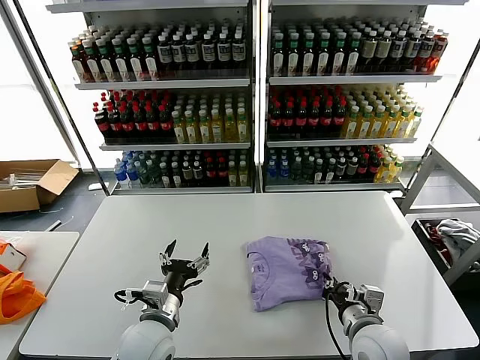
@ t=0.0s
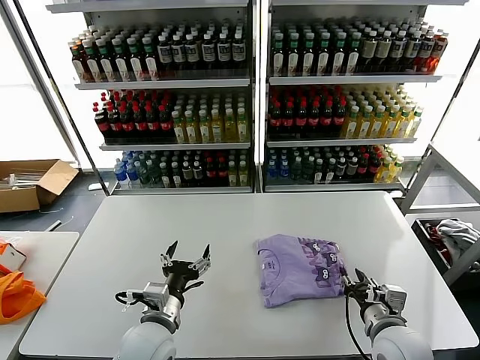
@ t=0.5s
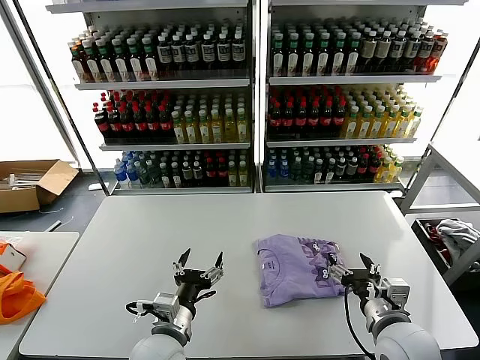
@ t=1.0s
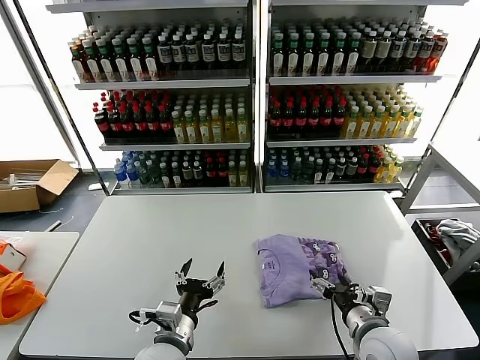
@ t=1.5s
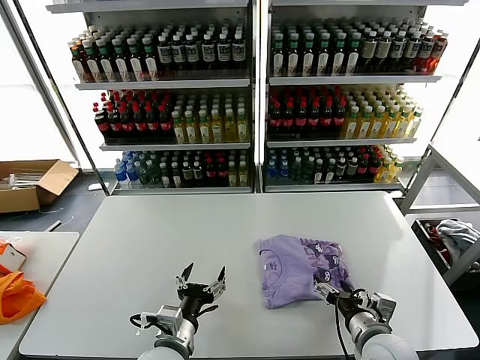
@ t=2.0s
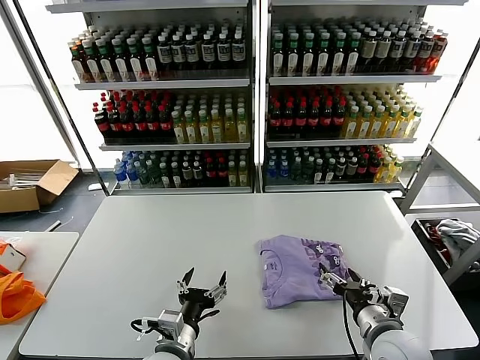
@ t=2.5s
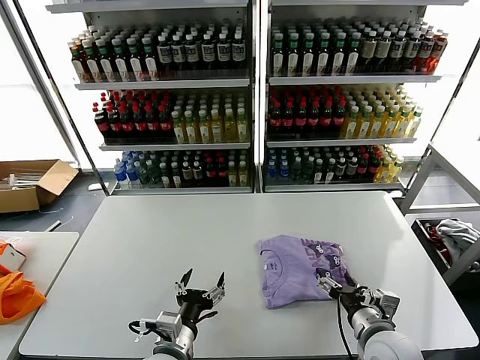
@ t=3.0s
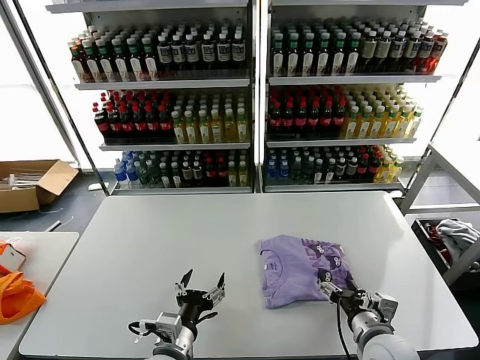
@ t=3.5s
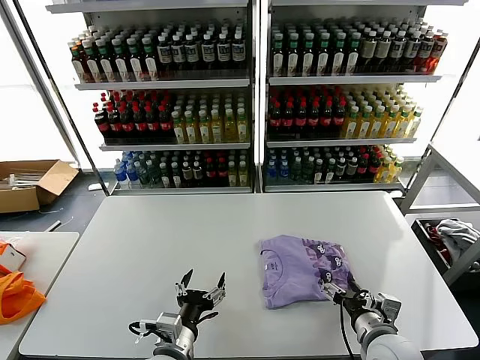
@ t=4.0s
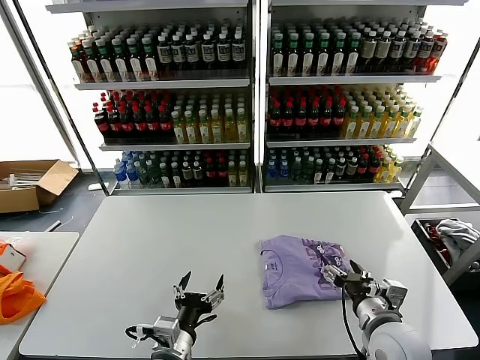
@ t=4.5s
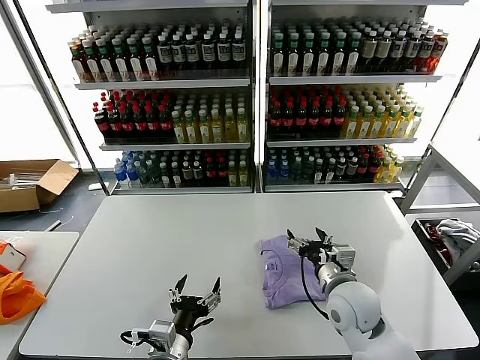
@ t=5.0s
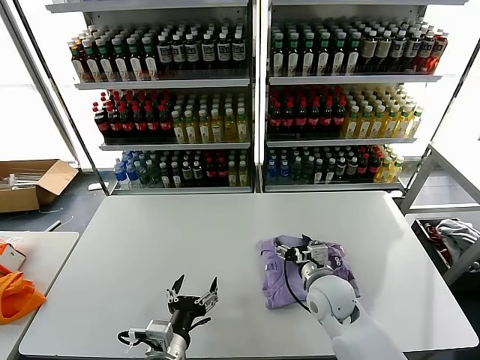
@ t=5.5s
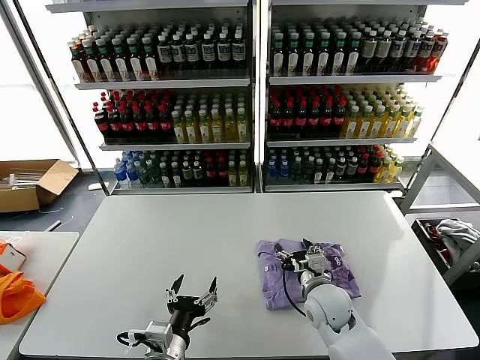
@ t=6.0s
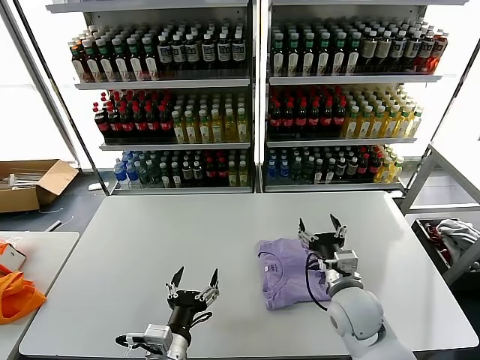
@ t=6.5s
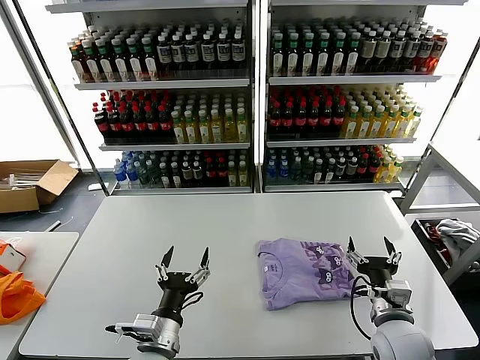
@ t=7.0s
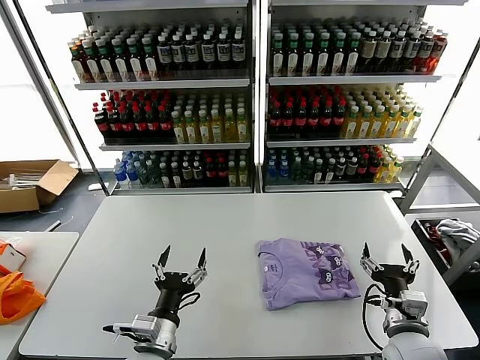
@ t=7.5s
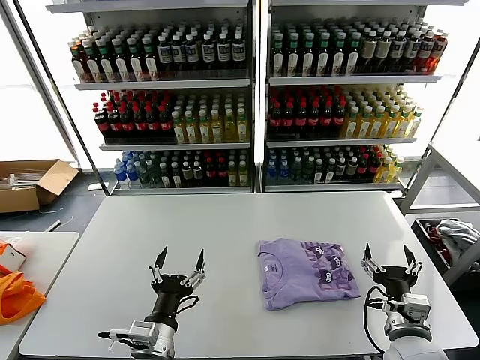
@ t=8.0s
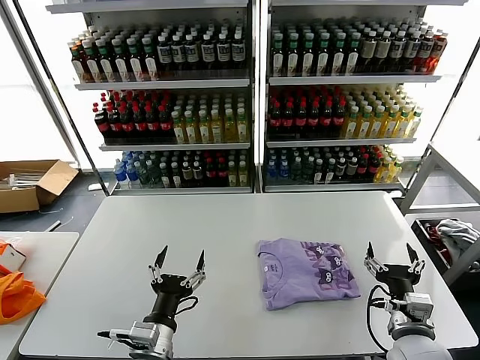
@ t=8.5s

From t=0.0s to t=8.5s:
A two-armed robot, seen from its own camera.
Task of the whole recording: fold and organize the clothes.
Step, from t=0.0s to t=6.0s: Drag the clothes to the center of the table.
From t=0.0s to t=2.0s: The left gripper ends up some 5 cm from where it was. Meanwhile the right gripper opens.
From t=2.0s to t=4.0s: The grippers stay close to where they were, moving slightly.
From t=4.0s to t=6.5s: The right gripper travels forward and to the left by roughly 10 cm.
From t=6.5s to t=8.5s: The right gripper moves backward and to the right, some 15 cm.

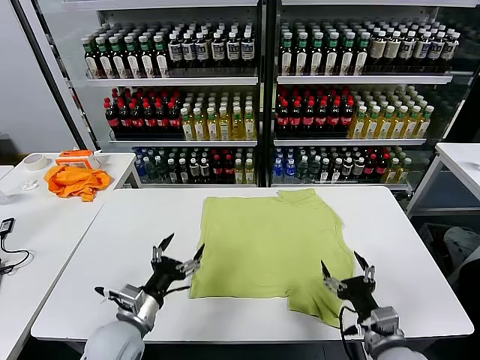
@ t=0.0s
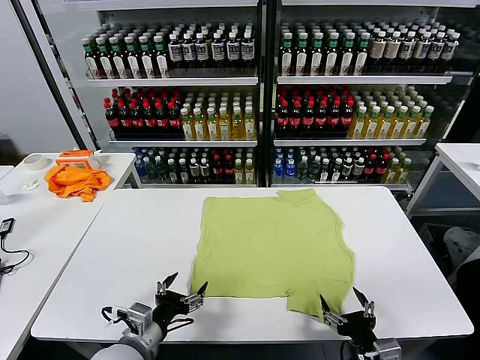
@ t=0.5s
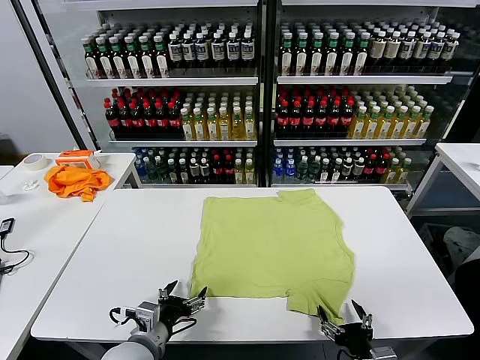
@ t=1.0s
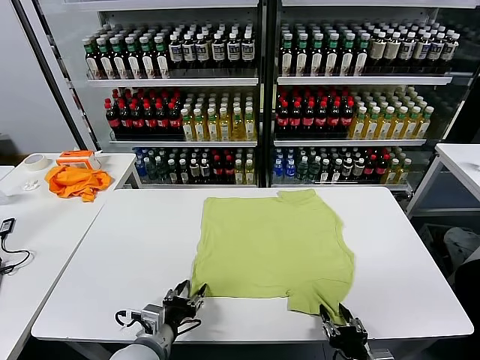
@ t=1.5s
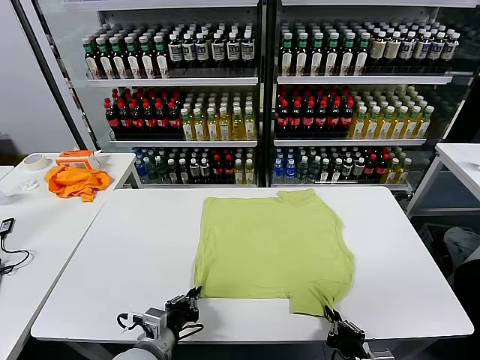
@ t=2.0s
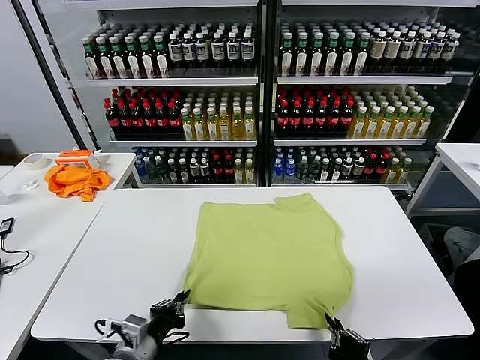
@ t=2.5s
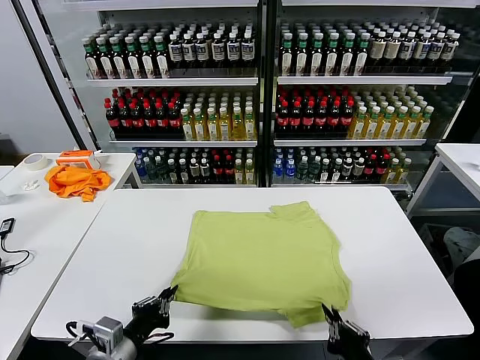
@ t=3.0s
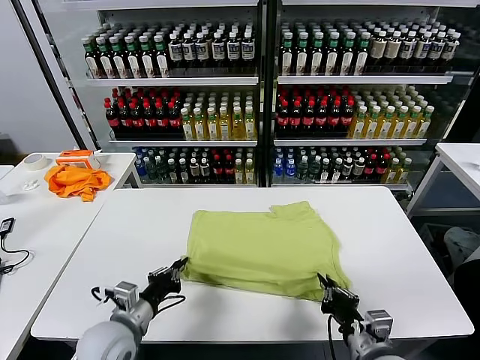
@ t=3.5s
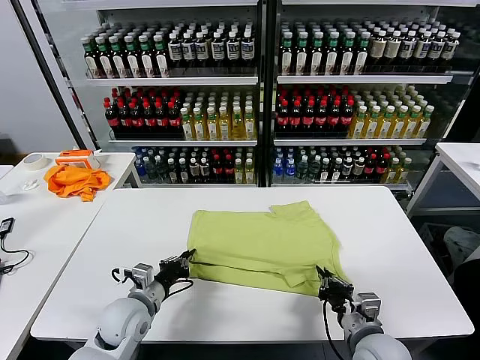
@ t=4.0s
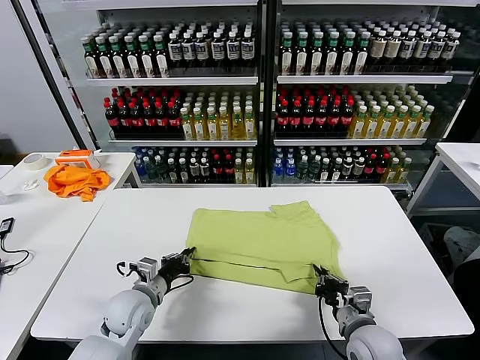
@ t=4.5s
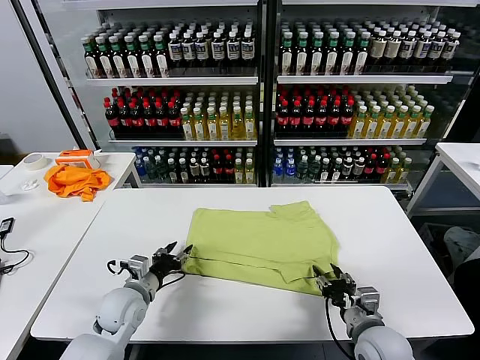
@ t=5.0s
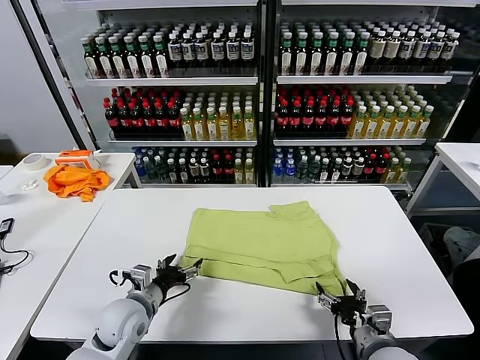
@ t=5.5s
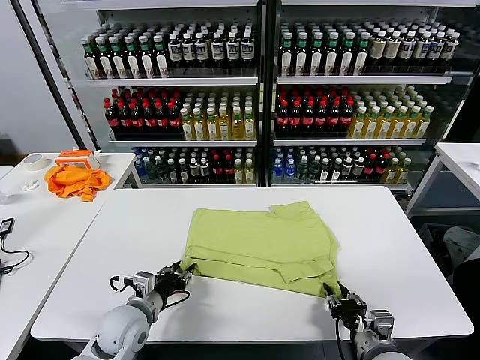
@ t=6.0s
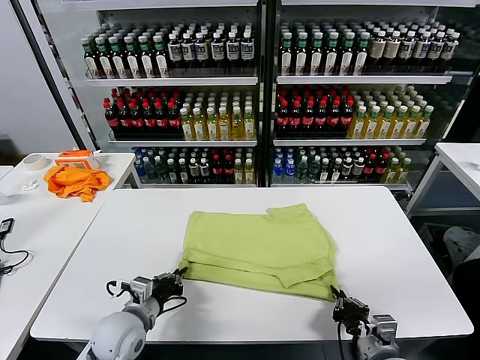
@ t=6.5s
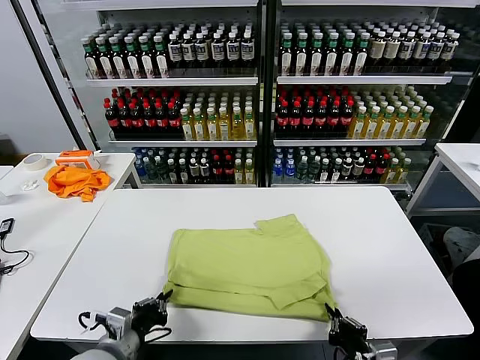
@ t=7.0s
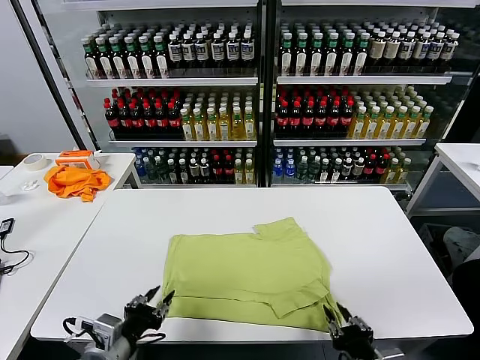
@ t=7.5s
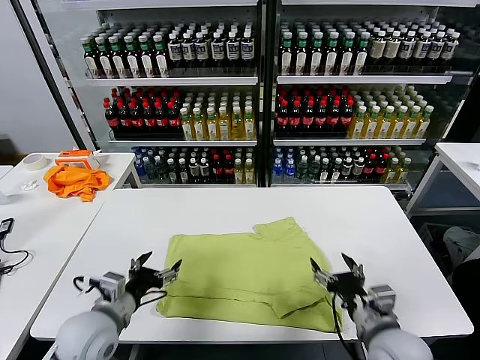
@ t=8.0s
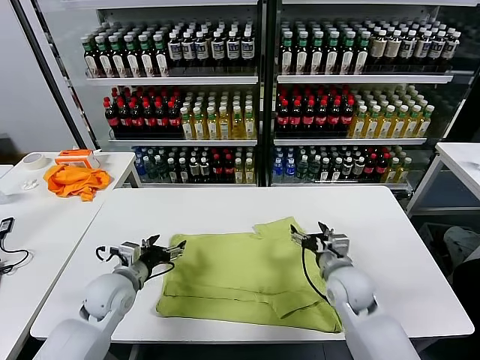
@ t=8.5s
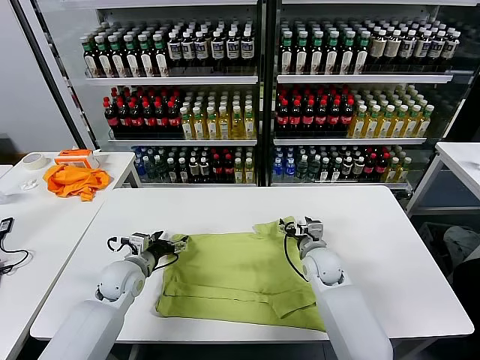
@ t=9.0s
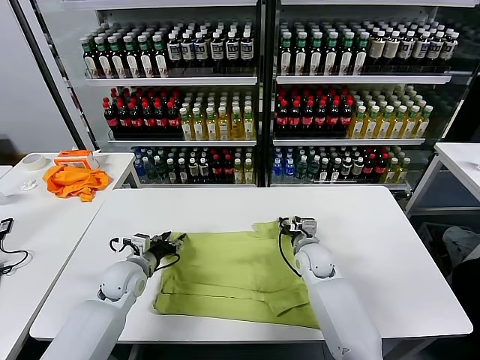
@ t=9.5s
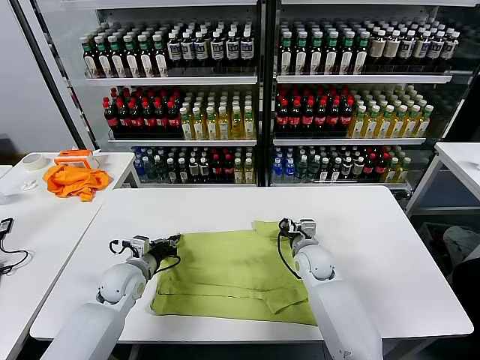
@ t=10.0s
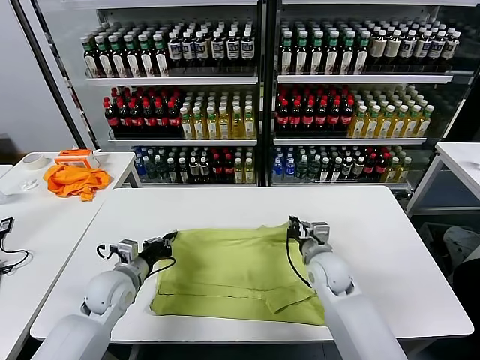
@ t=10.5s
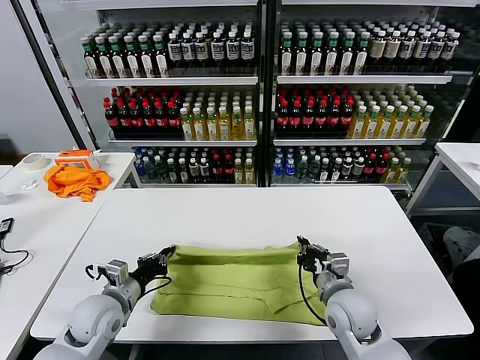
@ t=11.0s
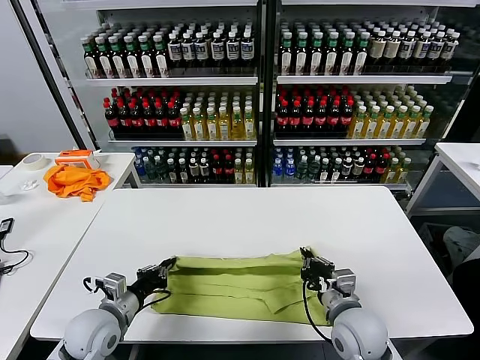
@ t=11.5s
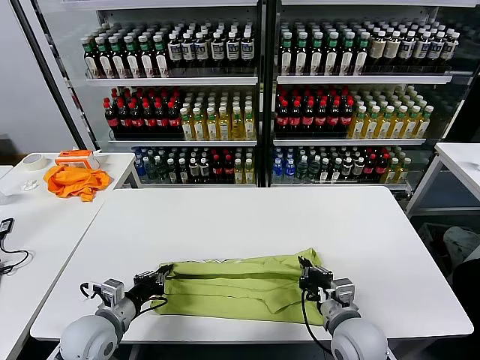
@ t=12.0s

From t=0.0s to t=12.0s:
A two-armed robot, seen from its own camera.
Task of the whole recording: fold and organize the clothes.
Step, from t=0.0s to t=2.0s: use both grippers simultaneously to clamp the lower edge of the clothing fabric.
Step, from t=2.5s to t=4.5s: use both grippers to drag the lower edge of the fabric forward and fold it over the upper edge.
Step, from t=5.0s to t=7.0s: Drag the clothes downward with both gripper.
Step, from t=7.5s to t=9.5s: use both grippers simultaneously to clamp the upper edge of the clothing fabric.
From t=2.0s to t=4.0s: The two grippers go some 10 cm forward.
From t=4.0s to t=6.0s: The right gripper opens and closes again. Meanwhile the left gripper opens up.
From t=6.0s to t=8.0s: The left gripper moves upward, approximately 5 cm, goes backward and returns, roughly 10 cm each way, and opens. The right gripper goes about 10 cm upward and forward, and opens up.
From t=8.0s to t=10.0s: The left gripper moves forward and downward, approximately 15 cm, and closes. Meanwhile the right gripper shifts some 20 cm forward, and closes up.
From t=10.0s to t=12.0s: The right gripper heads backward, covering roughly 20 cm, while the left gripper goes roughly 15 cm backward.

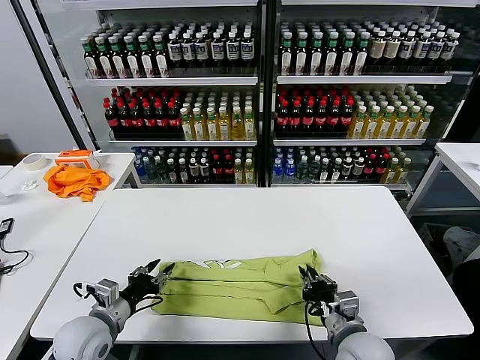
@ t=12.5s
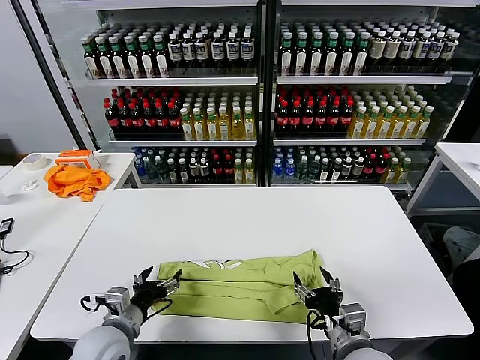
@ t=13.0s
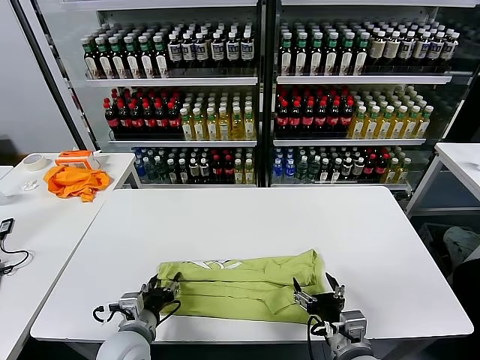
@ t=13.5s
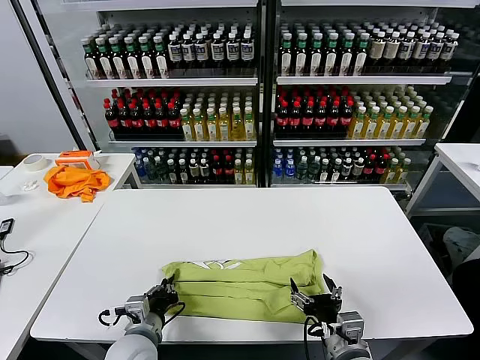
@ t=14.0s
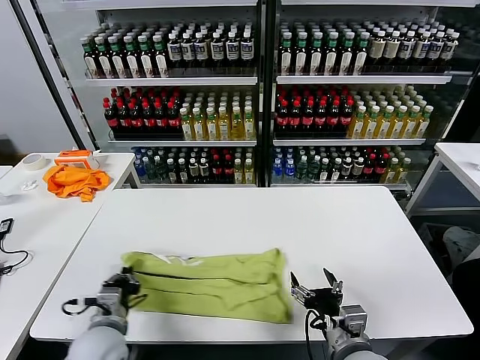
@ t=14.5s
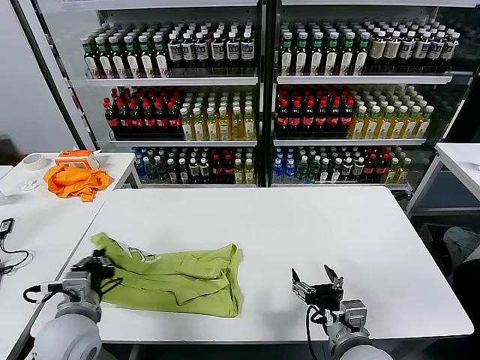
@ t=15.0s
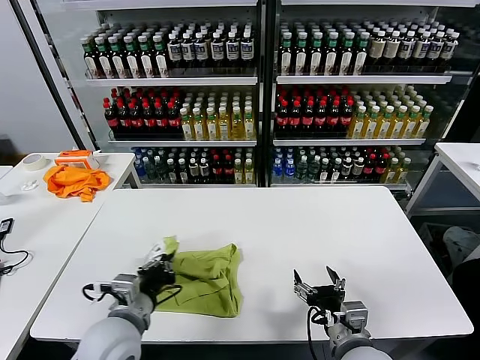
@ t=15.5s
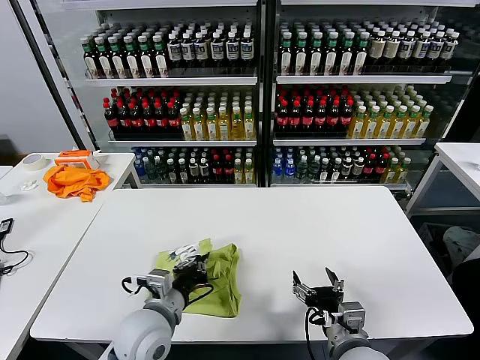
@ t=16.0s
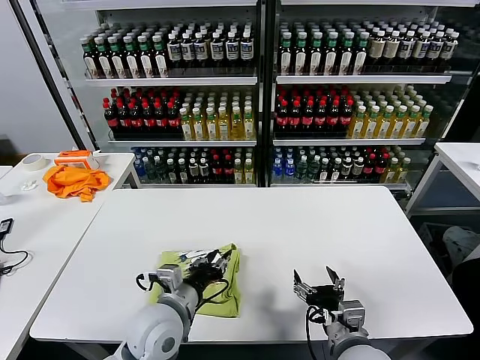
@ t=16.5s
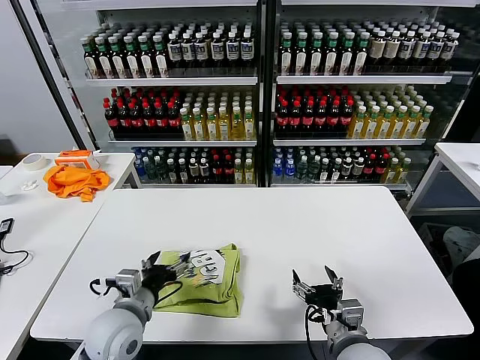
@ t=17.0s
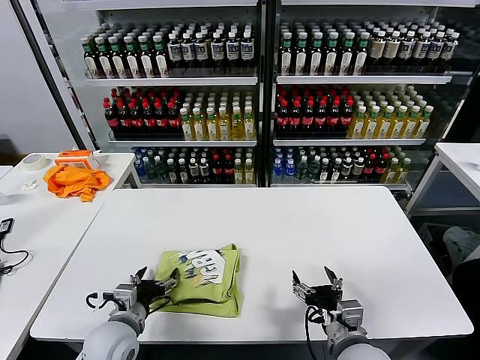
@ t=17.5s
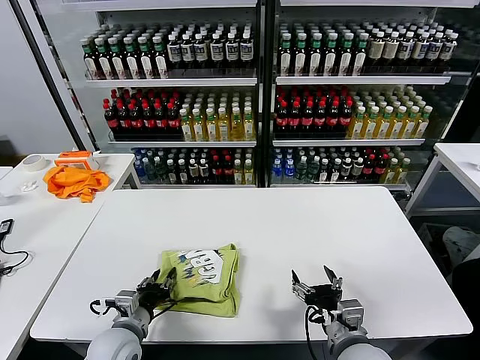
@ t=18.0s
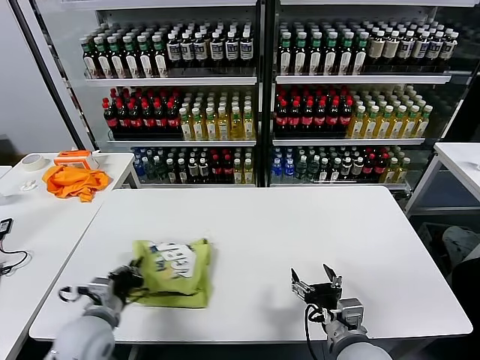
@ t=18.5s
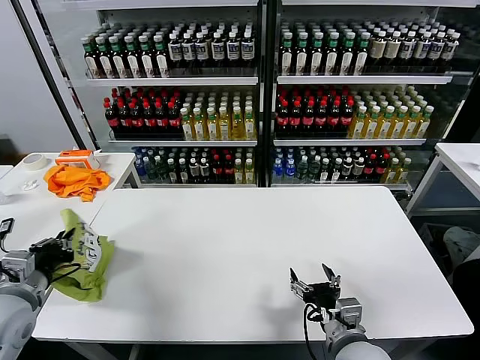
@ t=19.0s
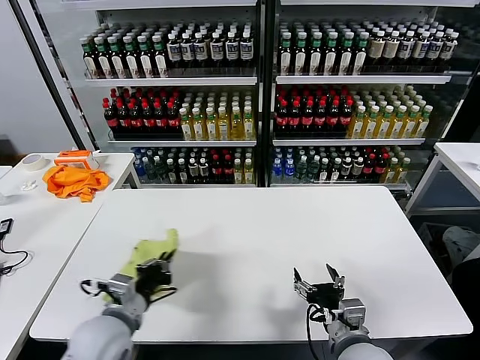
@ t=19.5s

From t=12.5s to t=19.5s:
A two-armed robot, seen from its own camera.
Task of the whole recording: fold and organize the clothes.
Step, from t=13.0s to t=14.0s: use the left gripper to clamp the left edge of the fabric.
Step, from t=14.5s to t=16.5s: use the left gripper to drag the left edge of the fabric to the left and folds it over the right edge.
From t=12.5s to t=14.5s: The left gripper closes; the right gripper opens its fingers.
From t=14.5s to t=16.0s: The left gripper is displaced to the right by roughly 10 cm.
From t=16.0s to t=17.5s: The left gripper is displaced to the left and downward by approximately 10 cm, and opens.
From t=17.5s to t=19.5s: The left gripper heads upward, covering about 5 cm, goes to the left and returns, some 15 cm each way, and closes up.
